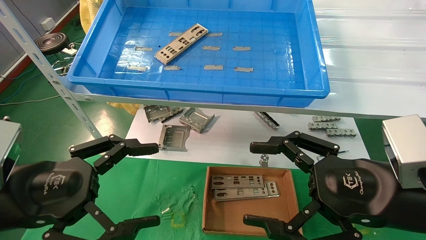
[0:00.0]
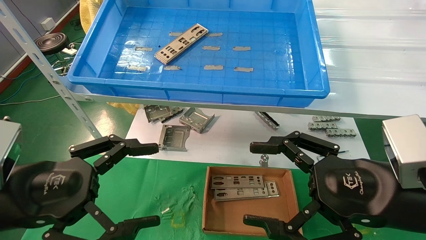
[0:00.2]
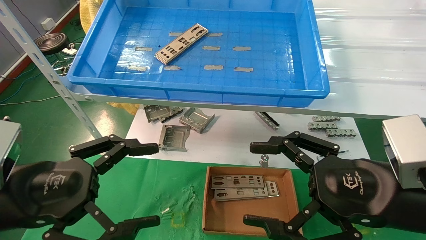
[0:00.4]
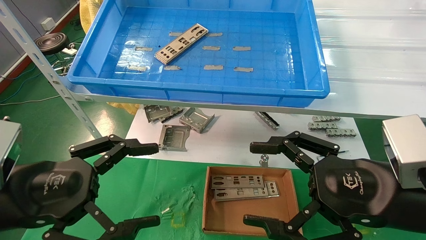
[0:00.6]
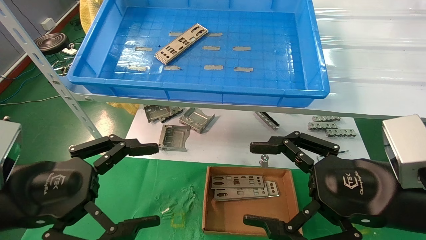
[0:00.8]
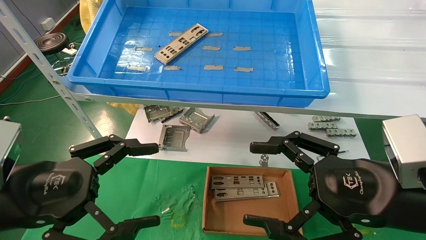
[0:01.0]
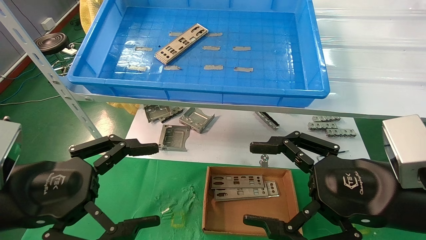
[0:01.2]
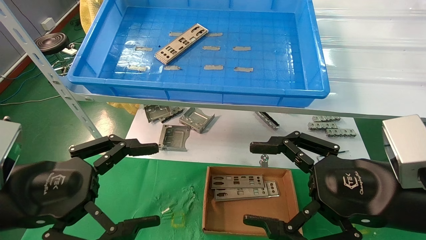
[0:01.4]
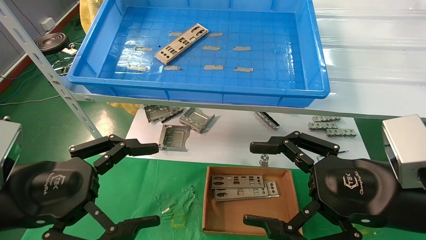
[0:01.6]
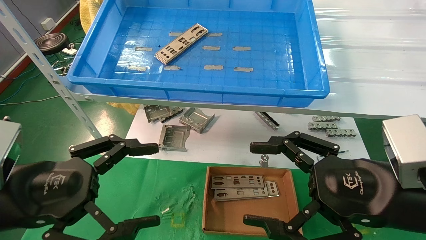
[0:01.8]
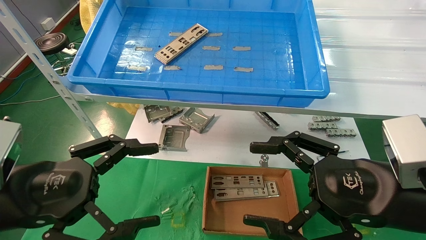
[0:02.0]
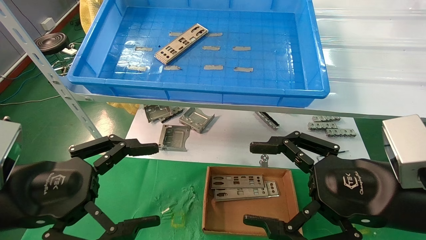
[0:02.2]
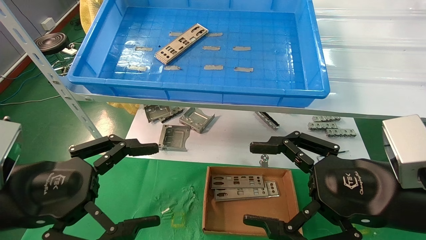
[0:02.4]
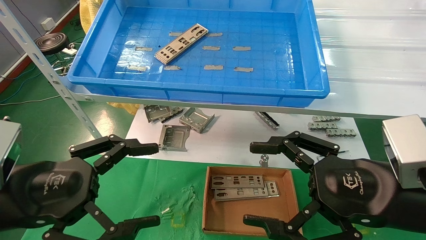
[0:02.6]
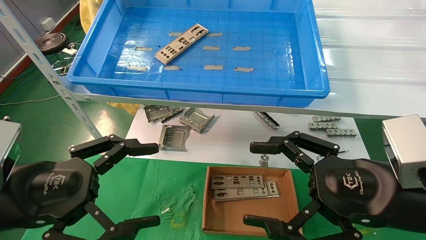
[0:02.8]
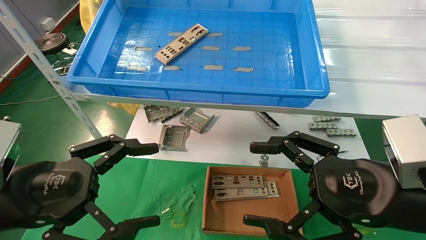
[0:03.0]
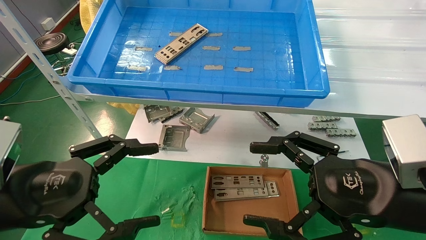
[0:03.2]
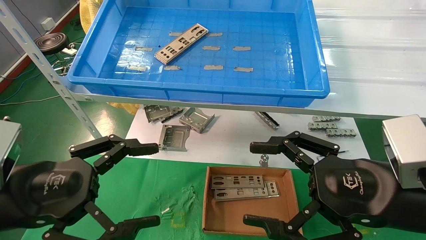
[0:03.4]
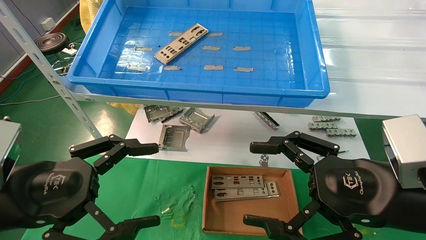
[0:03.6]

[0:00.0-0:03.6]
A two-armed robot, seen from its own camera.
Task of the whole recording: pick up the parts on the tray and put them in the cardboard box.
0:00.0 to 0:03.6: Both grippers stay about where they are.

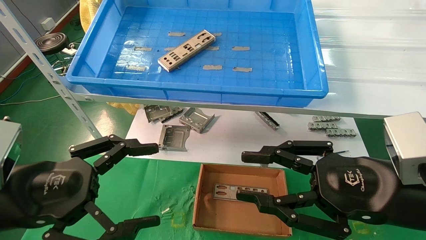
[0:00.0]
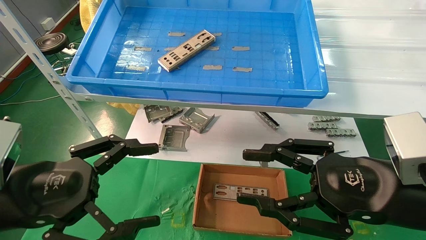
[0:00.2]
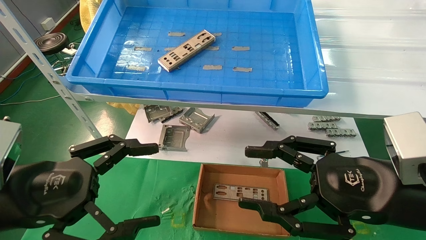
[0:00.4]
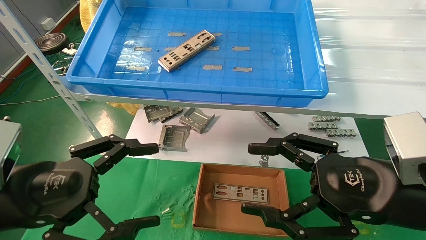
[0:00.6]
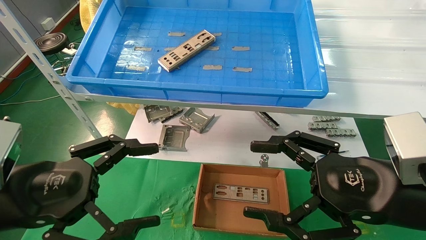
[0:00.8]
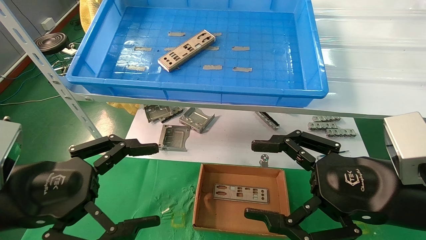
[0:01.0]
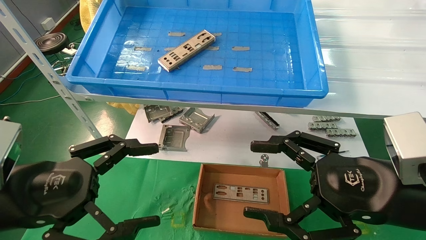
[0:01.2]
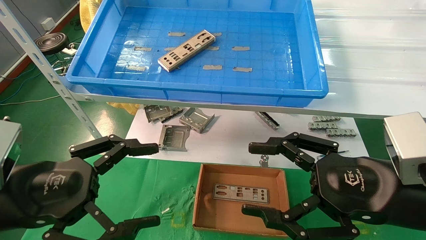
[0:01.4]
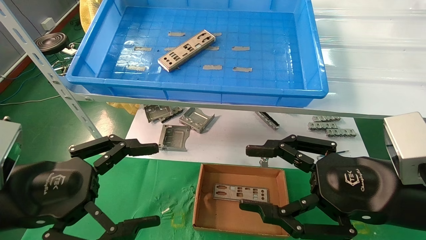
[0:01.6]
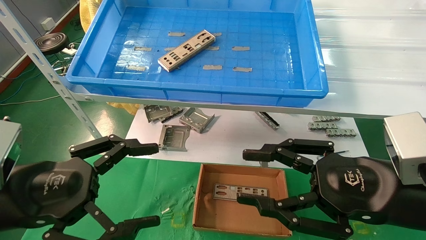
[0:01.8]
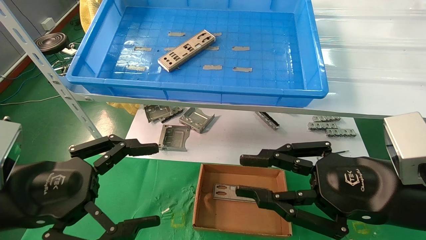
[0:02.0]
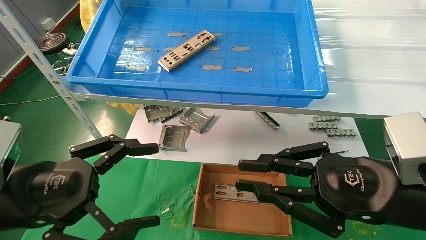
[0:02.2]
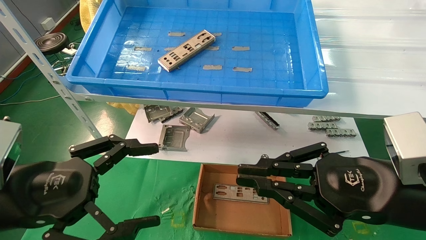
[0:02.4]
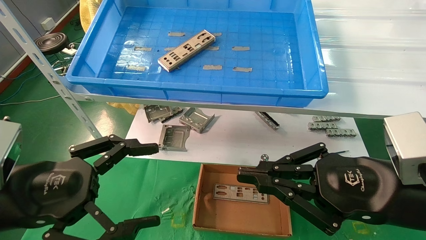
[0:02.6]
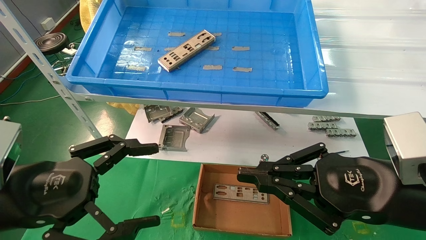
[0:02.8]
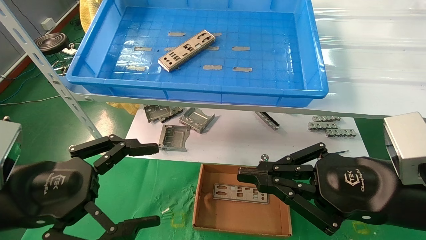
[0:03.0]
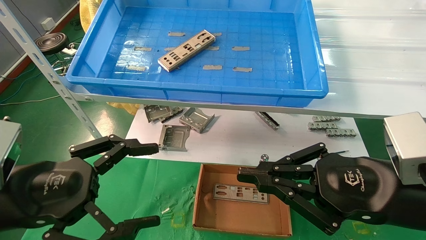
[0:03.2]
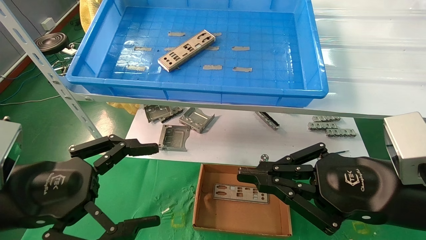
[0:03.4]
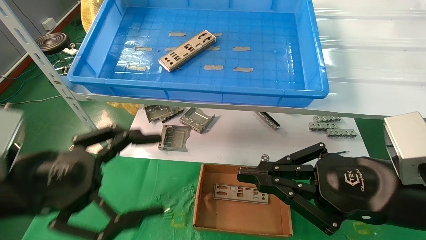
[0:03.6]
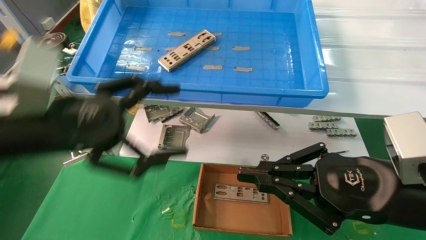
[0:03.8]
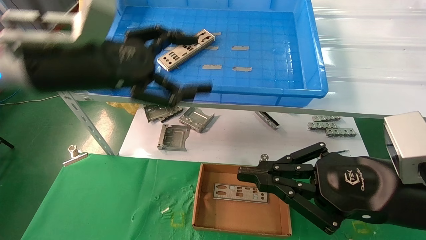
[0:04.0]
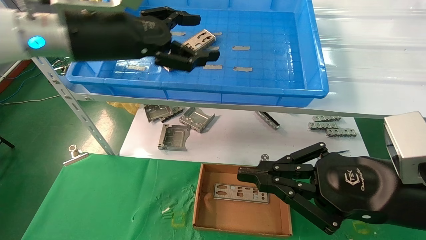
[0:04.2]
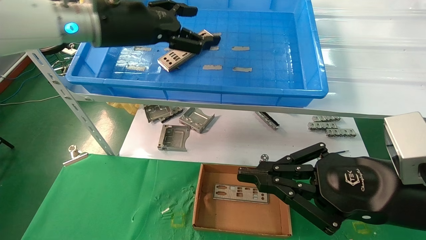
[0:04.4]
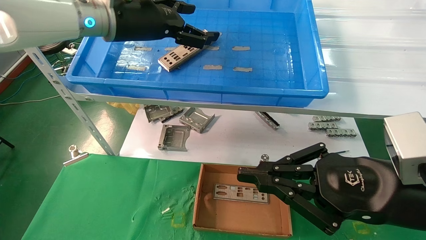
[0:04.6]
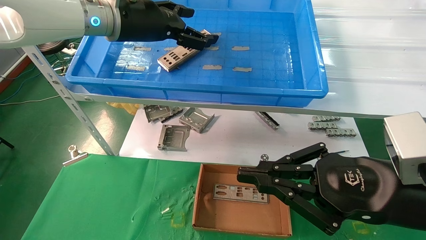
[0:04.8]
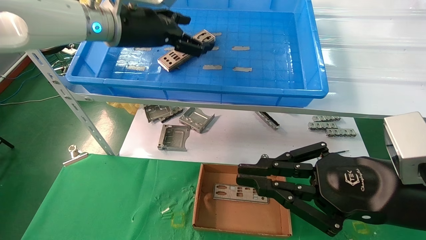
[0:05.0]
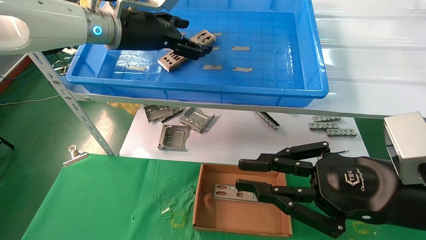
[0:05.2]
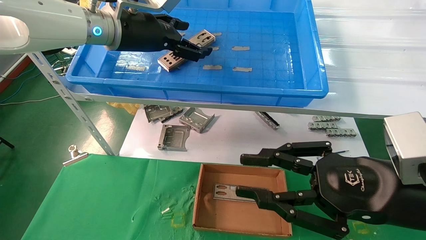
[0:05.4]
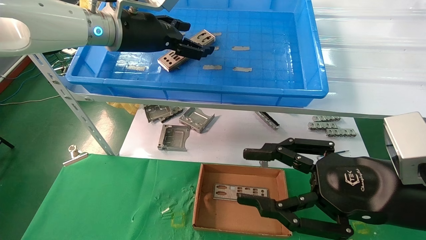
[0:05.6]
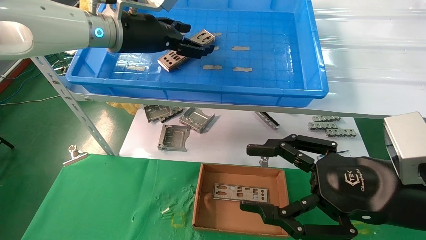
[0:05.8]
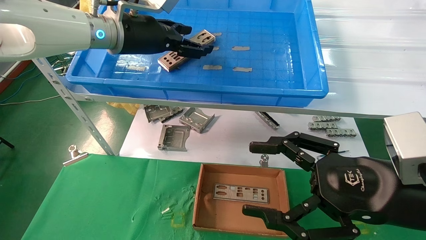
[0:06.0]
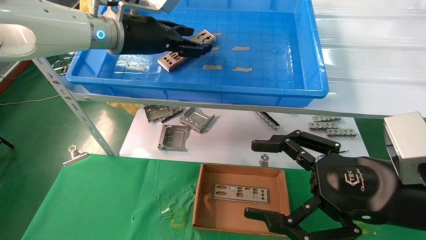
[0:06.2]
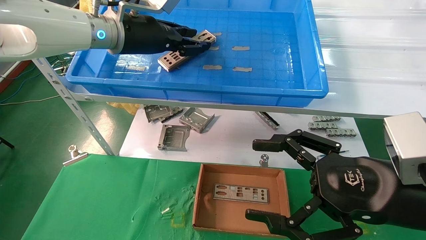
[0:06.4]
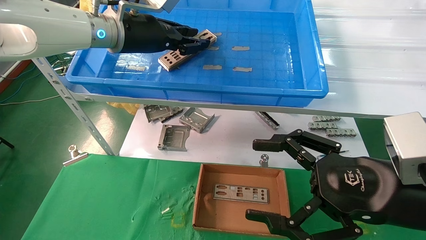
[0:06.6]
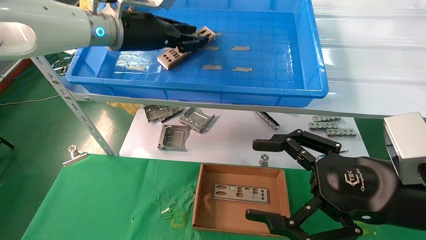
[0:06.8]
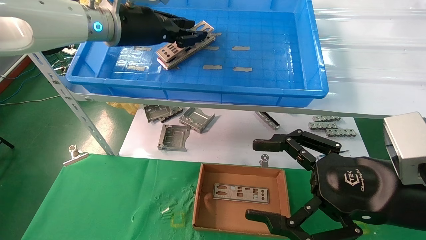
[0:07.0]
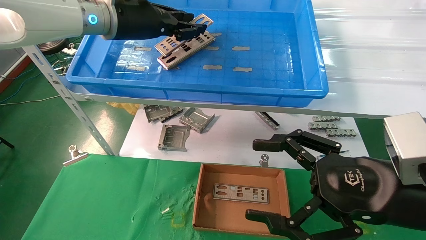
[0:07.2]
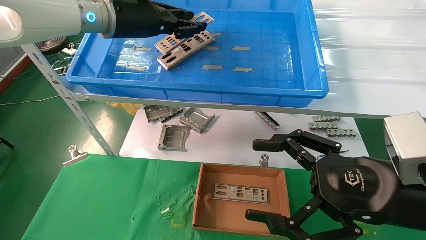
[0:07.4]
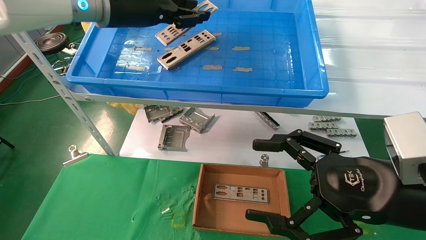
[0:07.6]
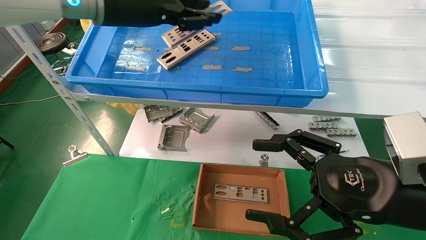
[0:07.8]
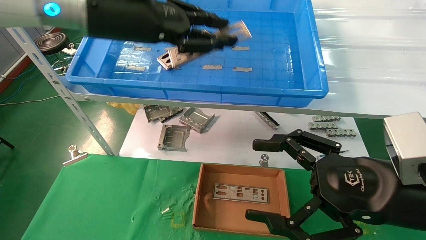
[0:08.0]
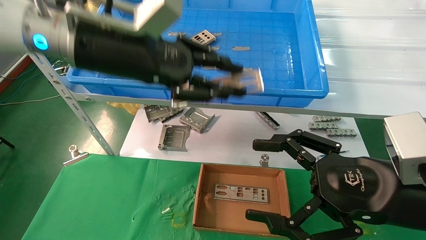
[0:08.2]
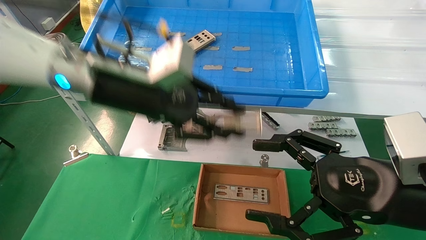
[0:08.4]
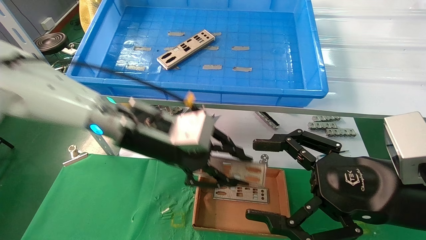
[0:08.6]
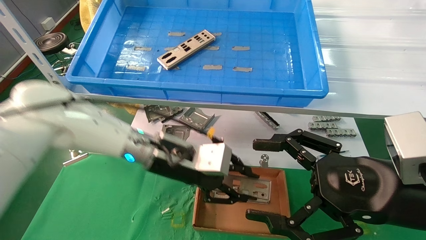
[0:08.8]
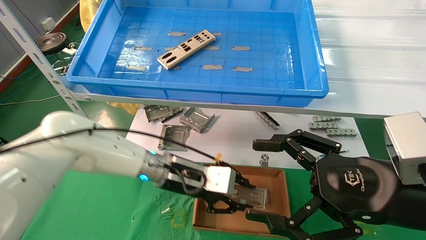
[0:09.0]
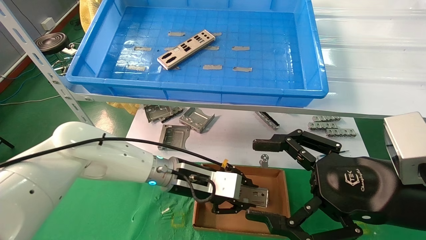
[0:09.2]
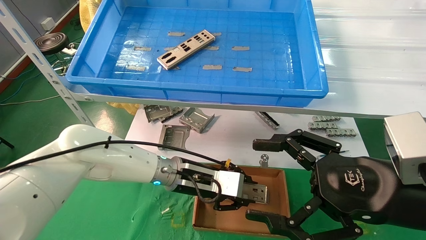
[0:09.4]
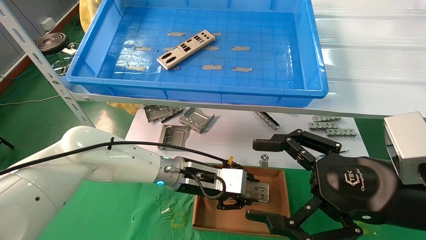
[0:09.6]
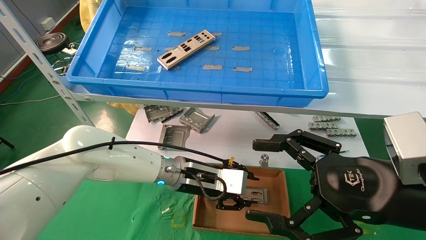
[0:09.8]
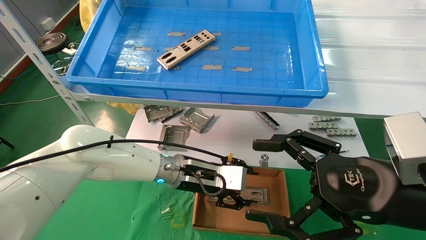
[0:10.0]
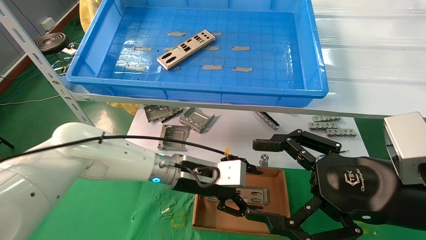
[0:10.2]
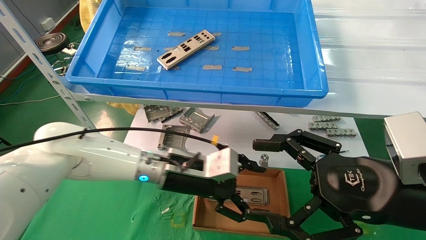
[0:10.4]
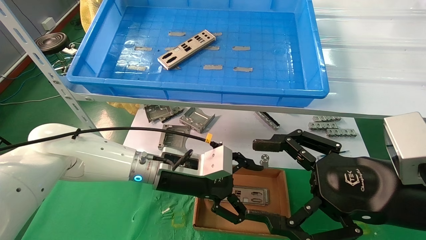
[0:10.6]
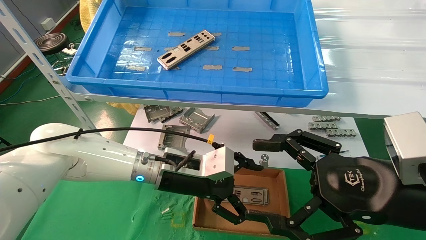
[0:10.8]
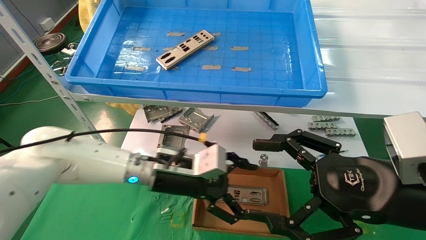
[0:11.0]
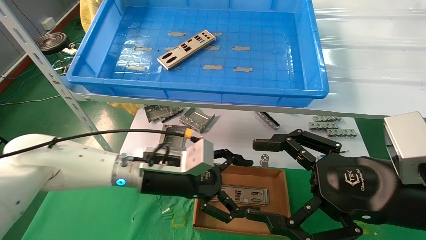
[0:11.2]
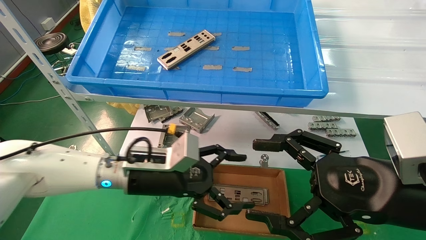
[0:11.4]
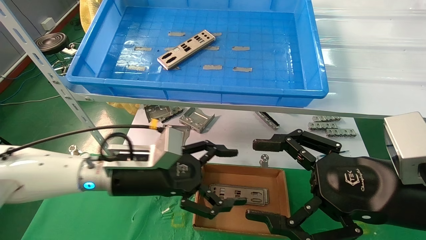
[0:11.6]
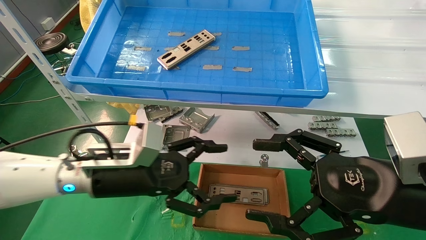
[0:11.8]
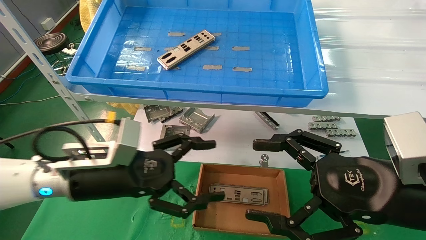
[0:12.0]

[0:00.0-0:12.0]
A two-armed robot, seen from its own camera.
Task of the whole recording: pick up the parts on the tray and put them in the cardboard box.
Step, 0:04.0 to 0:06.6: Pick up the IO bracket from the container box.
Step, 0:06.8 to 0:10.0: Place the IO bracket into the ingredient slot.
0:00.0 to 0:01.6: Neither gripper changes place.
0:01.6 to 0:03.0: The right gripper closes up.
0:03.0 to 0:04.4: The left gripper goes approximately 30 cm upward, forward and to the right.
0:04.4 to 0:06.0: The right gripper opens up.
0:06.0 to 0:07.6: The left gripper closes its fingers.
0:07.6 to 0:09.0: The left gripper moves downward, roughly 30 cm.
0:09.0 to 0:10.4: The left gripper opens its fingers.
0:10.4 to 0:12.0: The left gripper heads to the left and backward, covering approximately 15 cm.

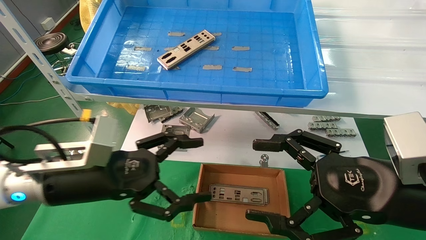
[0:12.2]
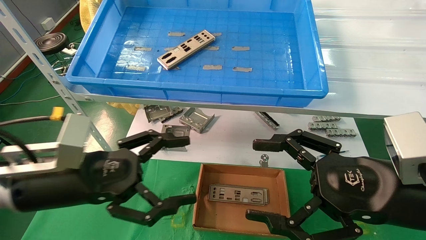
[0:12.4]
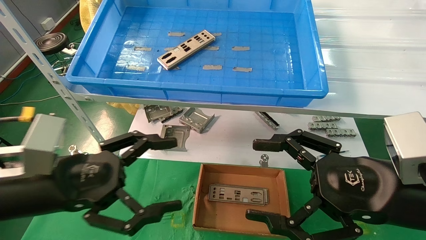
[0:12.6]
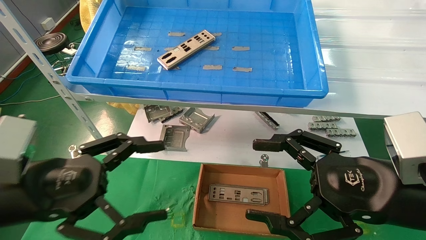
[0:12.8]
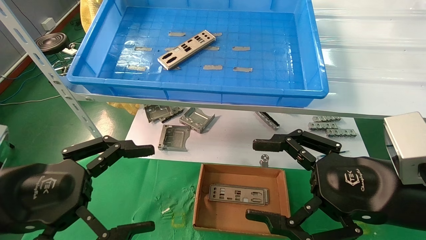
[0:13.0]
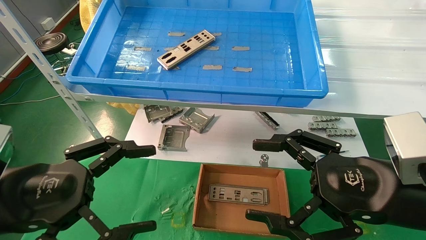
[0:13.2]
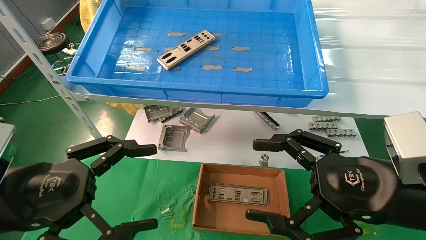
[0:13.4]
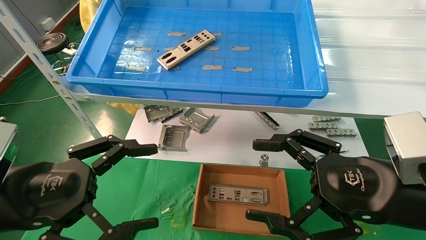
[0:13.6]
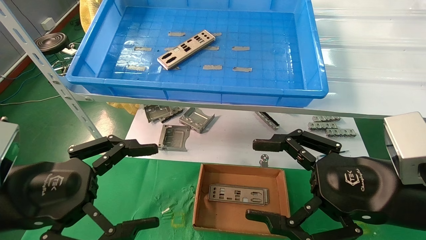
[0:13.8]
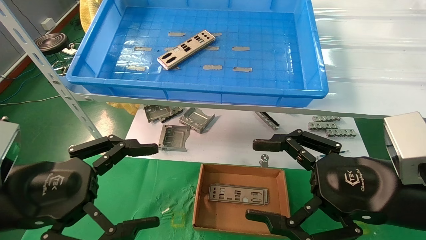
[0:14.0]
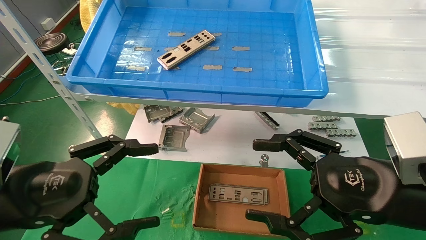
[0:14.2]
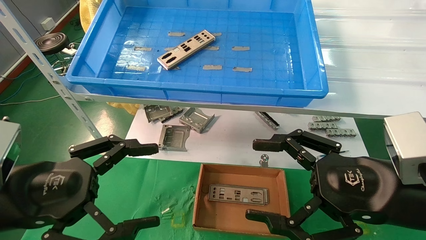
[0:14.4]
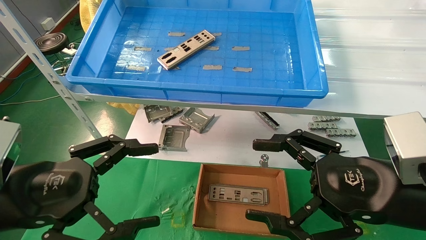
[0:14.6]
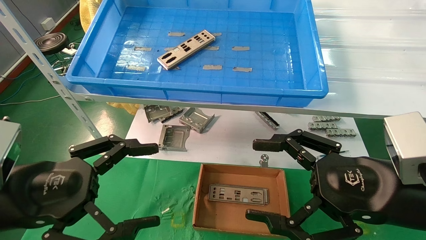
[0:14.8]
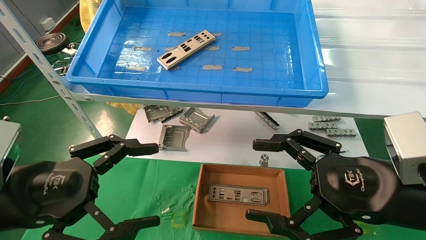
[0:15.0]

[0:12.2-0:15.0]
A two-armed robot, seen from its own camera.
Task of the whole recording: pick up the parts on the tray and put them in the cardboard box.
0:12.2 to 0:13.6: The left gripper travels backward and to the left by about 10 cm.
0:13.6 to 0:15.0: Both grippers stay about where they are.
